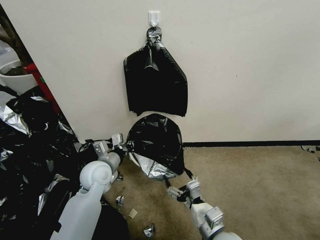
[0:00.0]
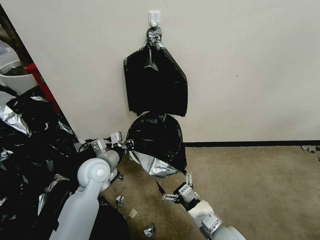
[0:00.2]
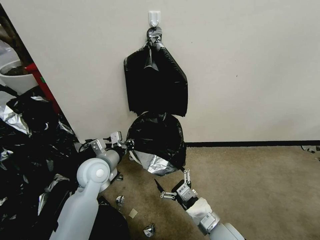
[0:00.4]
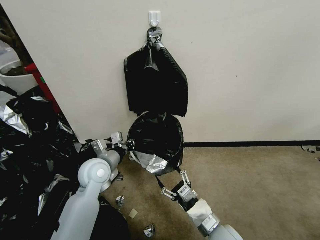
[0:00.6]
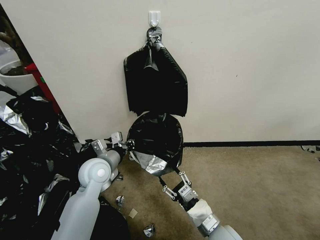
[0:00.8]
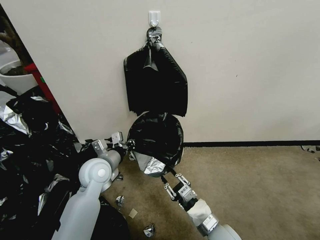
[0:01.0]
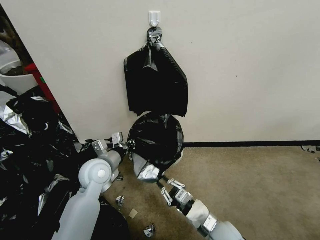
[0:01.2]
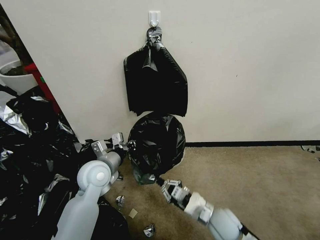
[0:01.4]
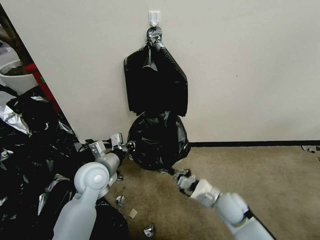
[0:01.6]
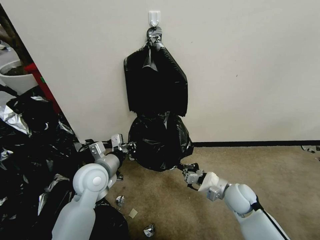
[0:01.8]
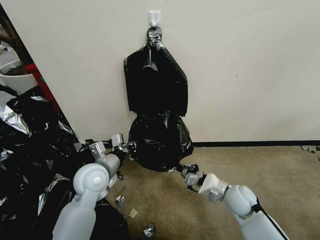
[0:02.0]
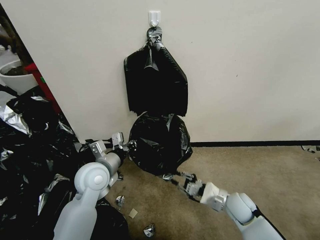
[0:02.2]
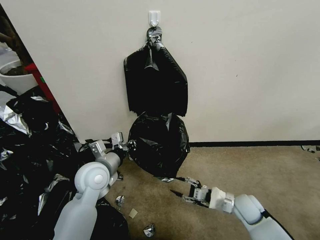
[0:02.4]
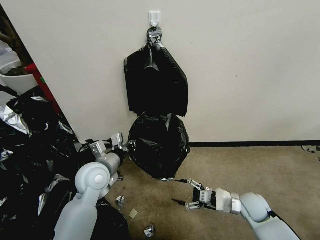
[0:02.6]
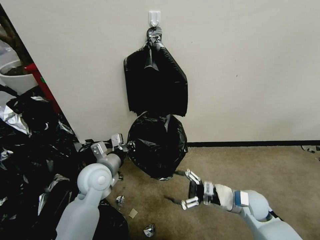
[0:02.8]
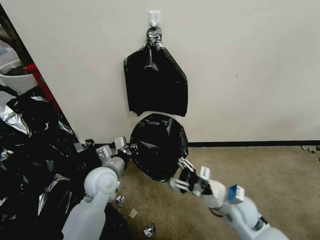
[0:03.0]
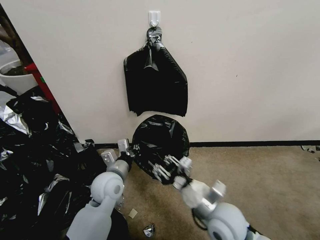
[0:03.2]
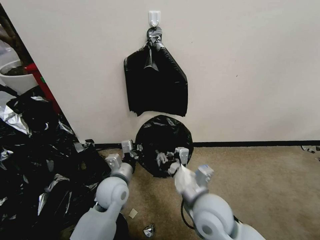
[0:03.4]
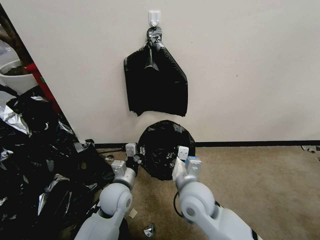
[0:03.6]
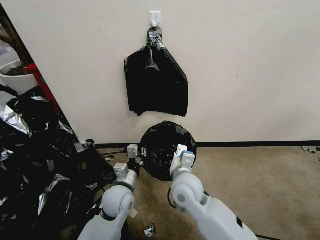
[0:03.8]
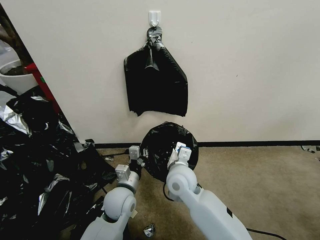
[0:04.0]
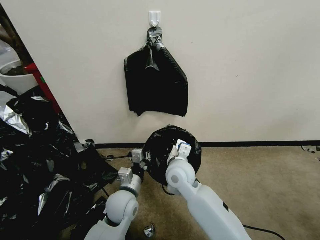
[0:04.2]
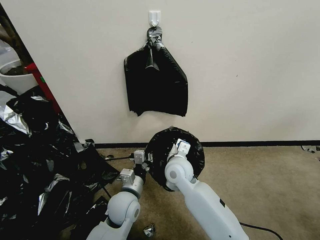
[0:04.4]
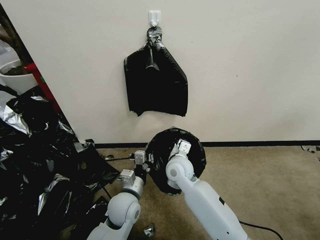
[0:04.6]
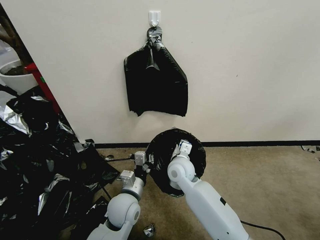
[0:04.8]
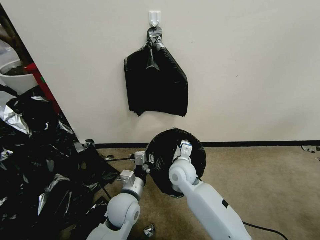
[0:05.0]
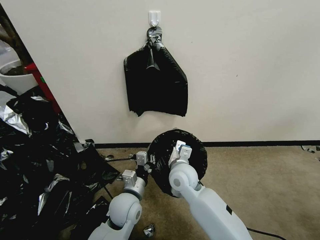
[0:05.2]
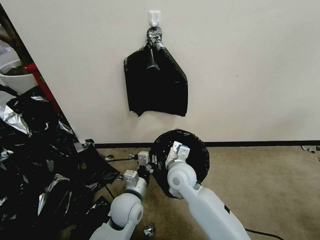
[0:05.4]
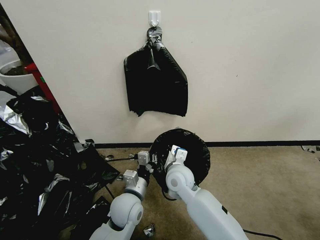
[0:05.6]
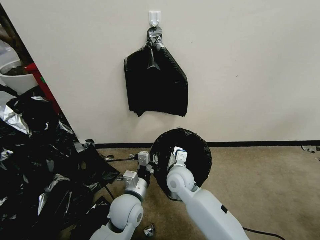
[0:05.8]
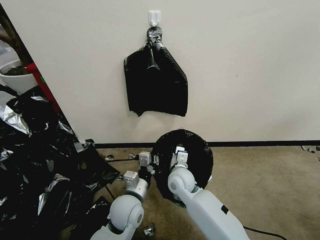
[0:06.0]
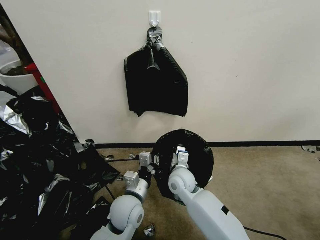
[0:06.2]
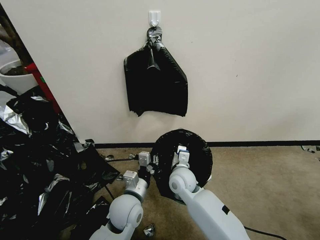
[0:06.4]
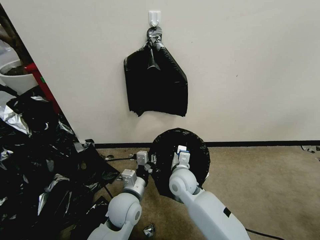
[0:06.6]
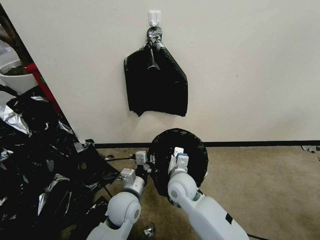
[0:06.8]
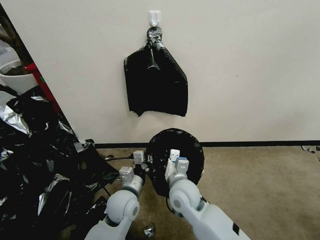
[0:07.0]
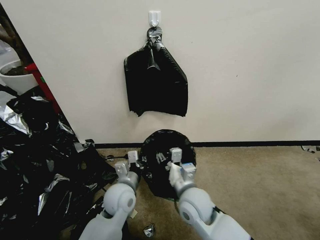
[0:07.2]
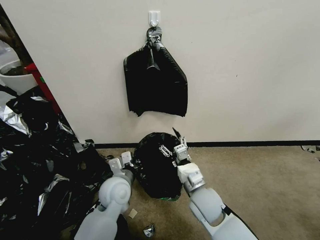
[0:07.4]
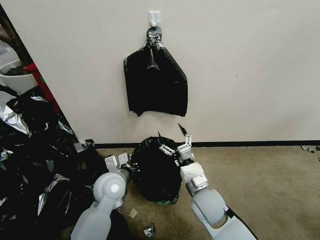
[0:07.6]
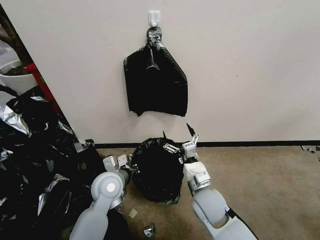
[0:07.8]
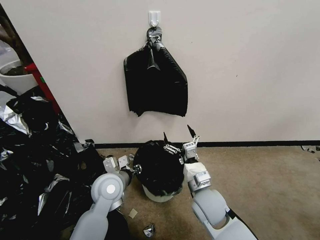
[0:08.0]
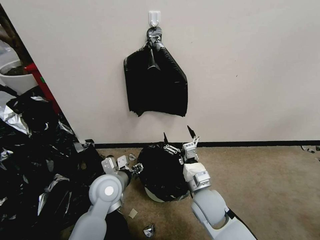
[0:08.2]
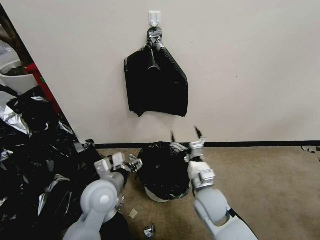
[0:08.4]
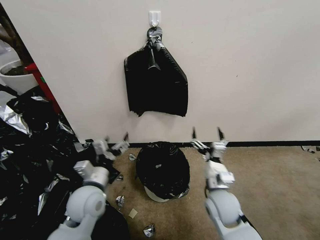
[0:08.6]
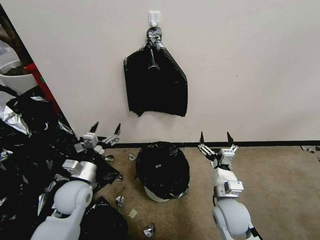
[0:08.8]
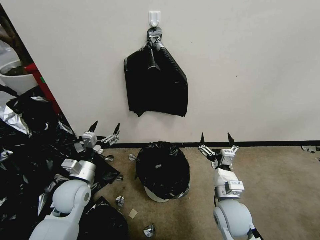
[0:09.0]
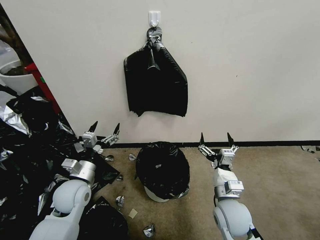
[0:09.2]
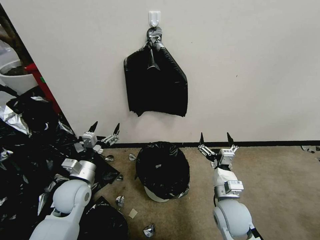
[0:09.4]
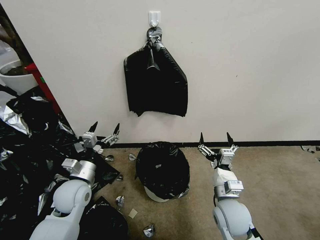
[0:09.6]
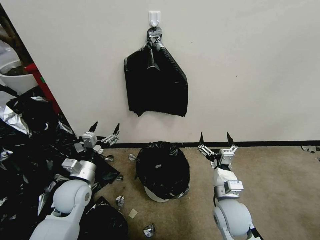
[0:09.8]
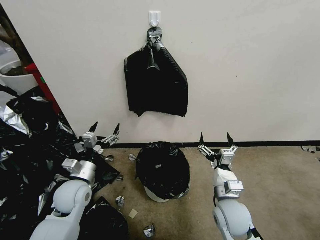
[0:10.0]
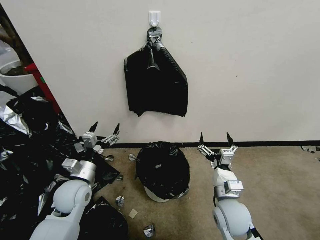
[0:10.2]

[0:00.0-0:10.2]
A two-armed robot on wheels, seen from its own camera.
Task of the whole recording: Place a trash bag onto the trash bin.
0:00.0 to 0:01.4: The right gripper moves forward and downward, about 10 cm, and closes.
0:01.4 to 0:03.0: The right gripper is displaced upward by about 5 cm, and opens.
0:03.0 to 0:04.4: The right gripper is displaced to the left and forward by about 20 cm, and closes its fingers. Meanwhile the left gripper heads downward, to the right and backward, covering some 10 cm.
0:04.4 to 0:05.8: The grippers stay close to where they were, moving slightly.
0:05.8 to 0:07.2: The right gripper is displaced backward by some 10 cm, and opens up.
0:07.2 to 0:08.8: The left gripper is displaced to the left by about 15 cm, and opens up; the right gripper moves to the right, about 10 cm, and opens.
0:08.8 to 0:10.2: The two grippers keep their place.

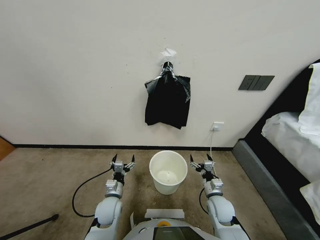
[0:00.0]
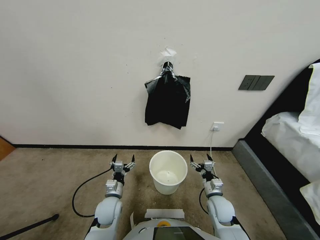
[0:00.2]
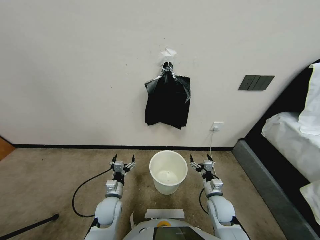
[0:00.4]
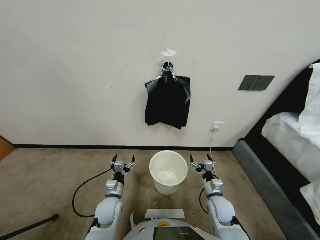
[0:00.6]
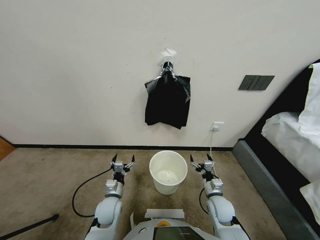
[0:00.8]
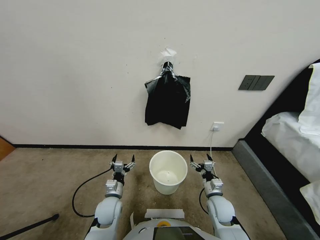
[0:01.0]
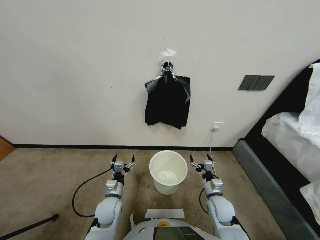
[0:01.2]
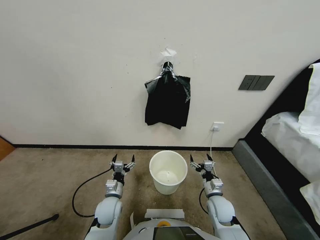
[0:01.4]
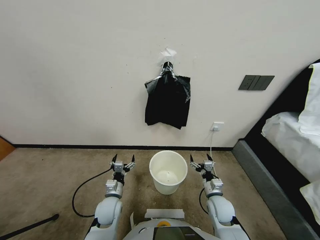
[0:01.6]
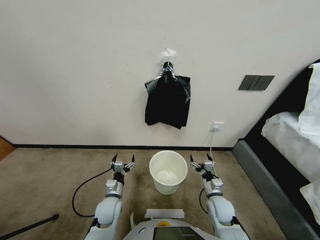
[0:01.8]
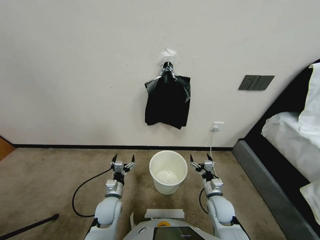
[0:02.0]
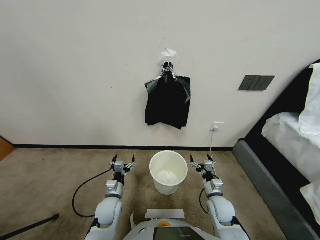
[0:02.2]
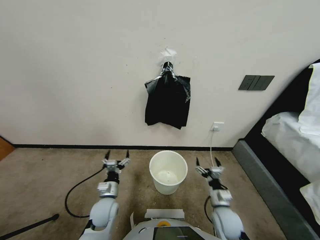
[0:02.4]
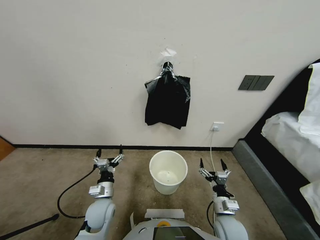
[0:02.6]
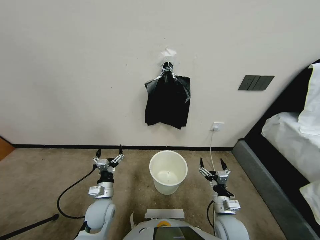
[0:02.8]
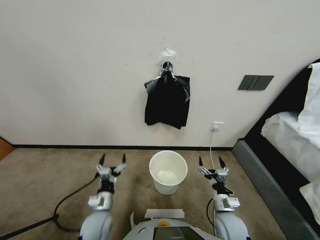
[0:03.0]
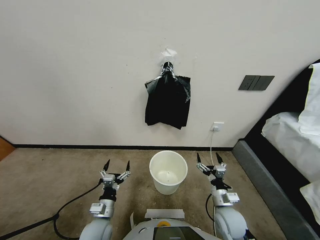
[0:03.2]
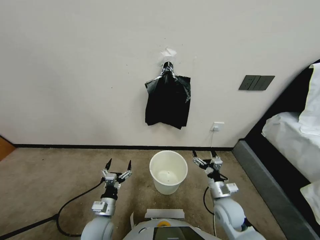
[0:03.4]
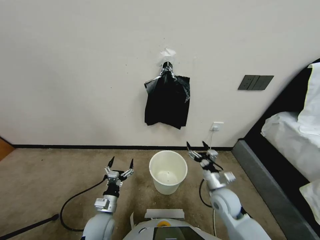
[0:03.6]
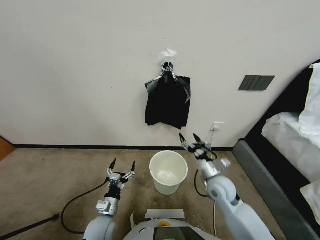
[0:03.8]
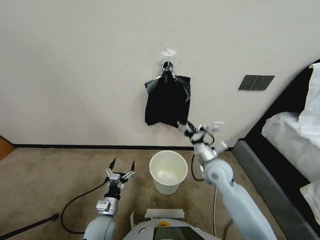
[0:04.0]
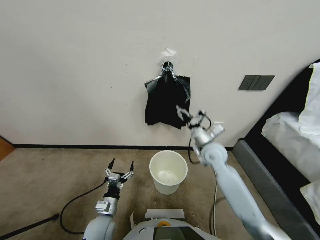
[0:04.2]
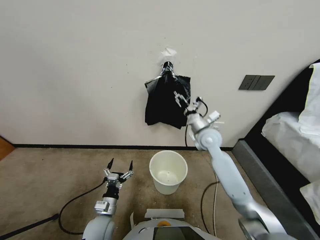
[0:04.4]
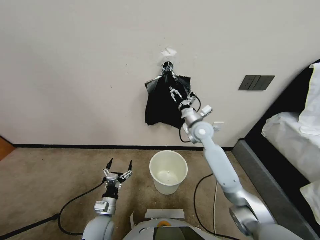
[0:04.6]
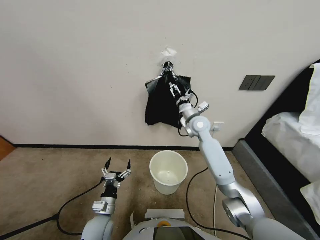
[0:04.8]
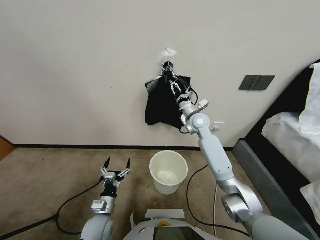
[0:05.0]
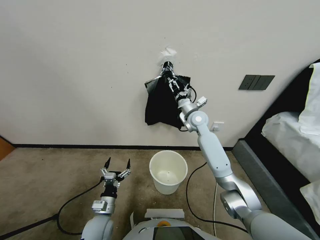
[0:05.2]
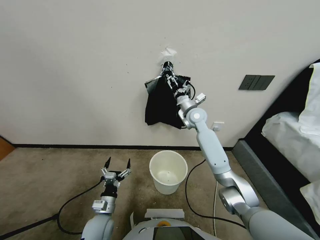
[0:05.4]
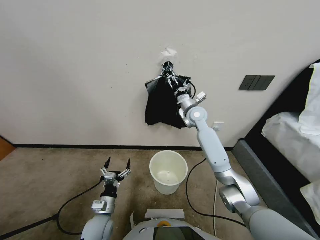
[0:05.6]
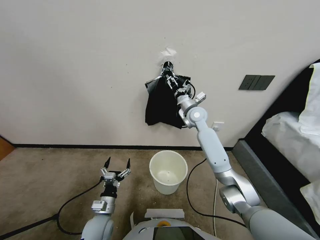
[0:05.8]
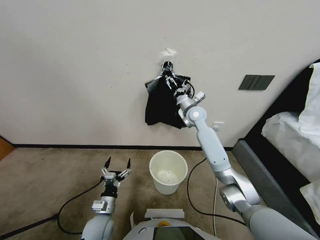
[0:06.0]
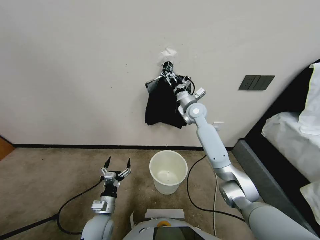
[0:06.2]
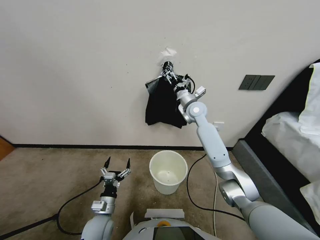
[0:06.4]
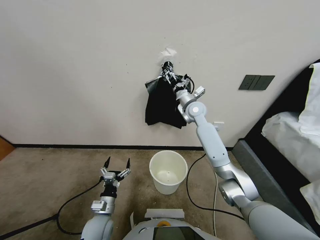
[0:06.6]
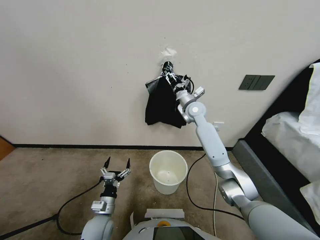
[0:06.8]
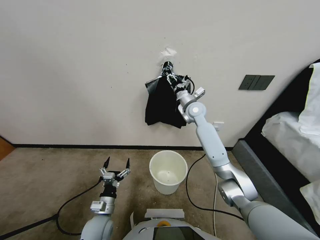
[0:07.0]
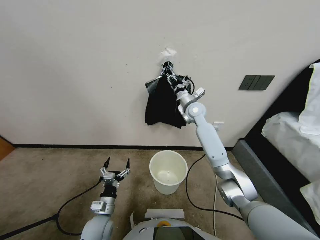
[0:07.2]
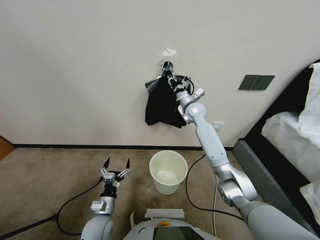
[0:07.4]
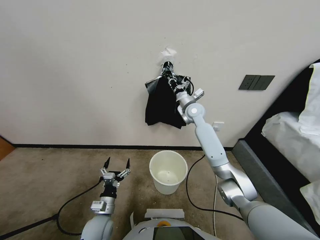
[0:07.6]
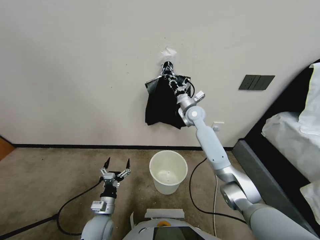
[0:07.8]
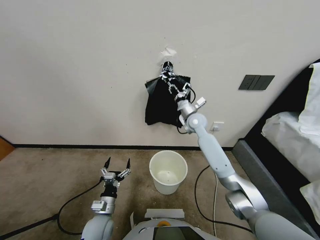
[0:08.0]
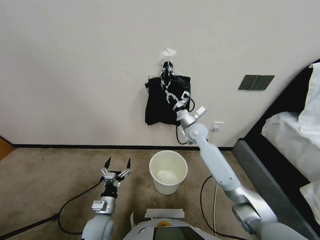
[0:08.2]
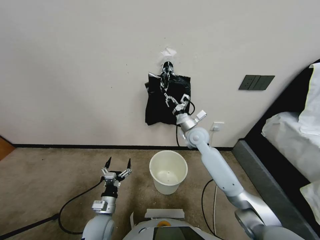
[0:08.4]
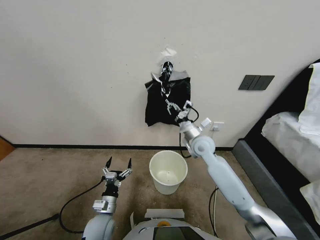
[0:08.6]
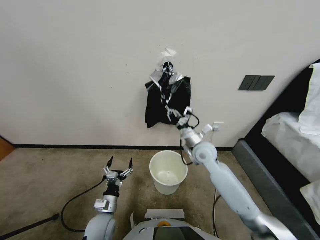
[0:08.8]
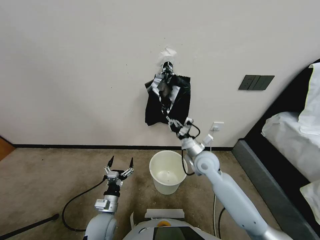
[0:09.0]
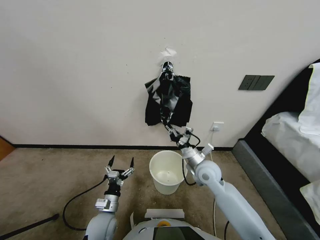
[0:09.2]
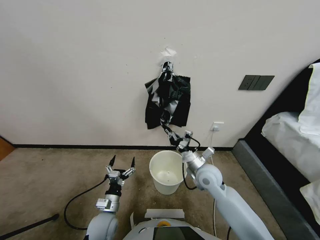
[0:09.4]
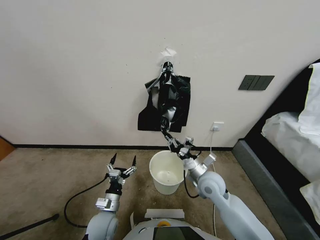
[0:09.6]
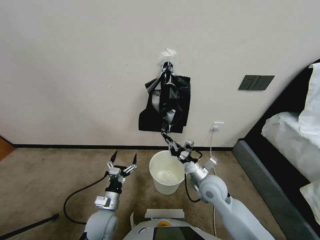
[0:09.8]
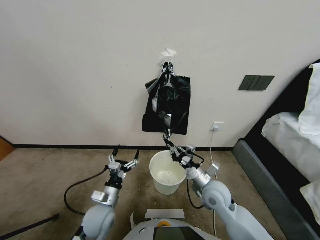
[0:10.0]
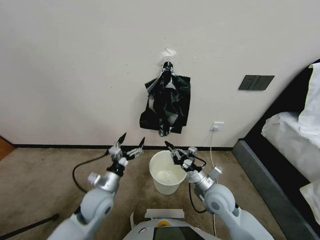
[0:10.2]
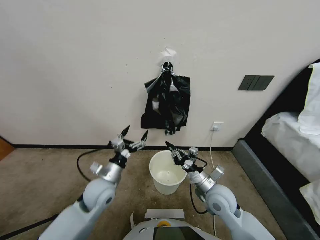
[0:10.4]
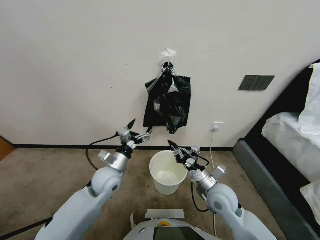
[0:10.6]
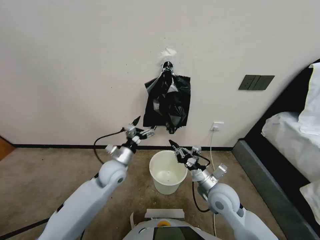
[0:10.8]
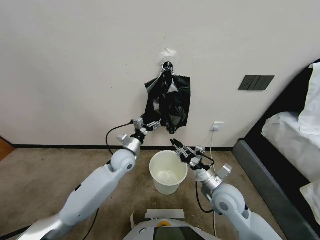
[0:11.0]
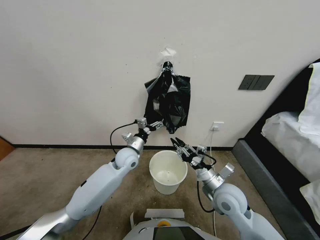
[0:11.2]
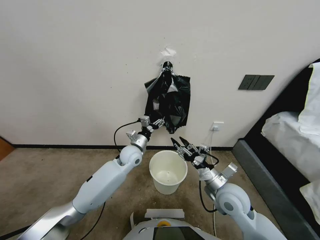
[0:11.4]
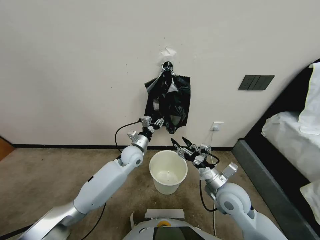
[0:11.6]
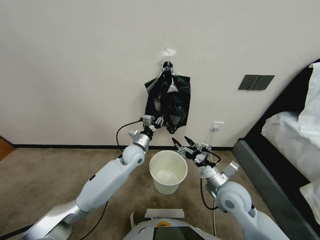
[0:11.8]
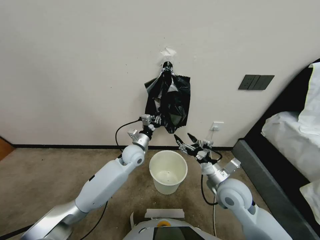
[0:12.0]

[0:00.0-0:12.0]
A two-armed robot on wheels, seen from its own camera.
Task of the whole recording: Place a trash bag onto the trash bin.
0:01.6 to 0:03.0: The grippers both shift backward by approximately 5 cm.
0:03.0 to 0:04.4: The right gripper shifts roughly 35 cm forward and upward.
0:04.4 to 0:06.0: The right gripper moves forward, approximately 10 cm.
0:06.0 to 0:07.6: The right gripper closes.
0:07.6 to 0:09.0: The right gripper shifts approximately 25 cm backward and downward.
0:09.0 to 0:10.4: The left gripper moves upward and forward, roughly 15 cm. Meanwhile the right gripper is displaced backward by roughly 10 cm.
0:10.4 to 0:12.0: The right gripper opens, while the left gripper moves forward and to the right, some 15 cm, and closes up.
